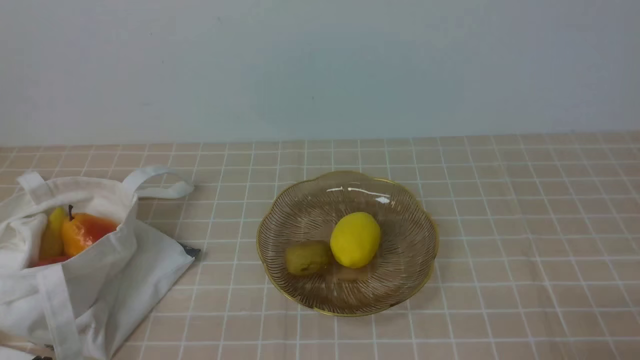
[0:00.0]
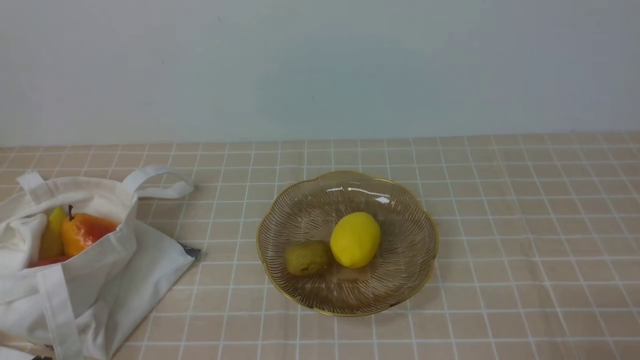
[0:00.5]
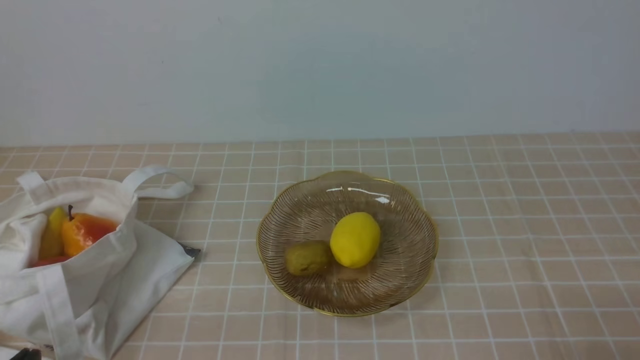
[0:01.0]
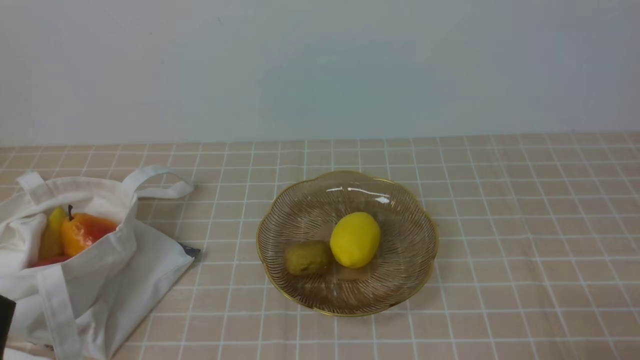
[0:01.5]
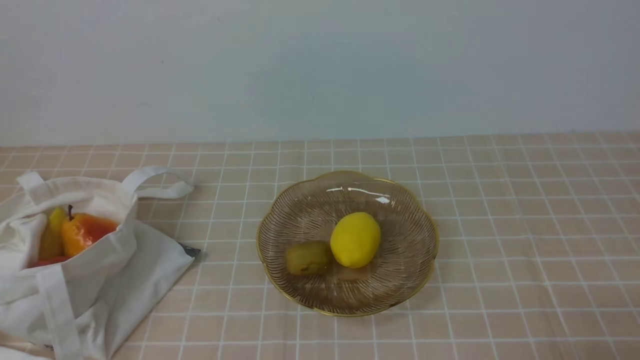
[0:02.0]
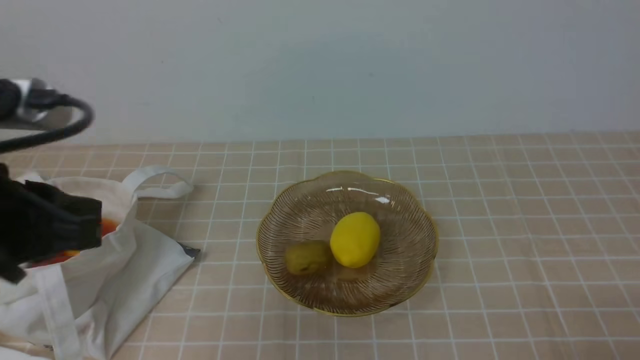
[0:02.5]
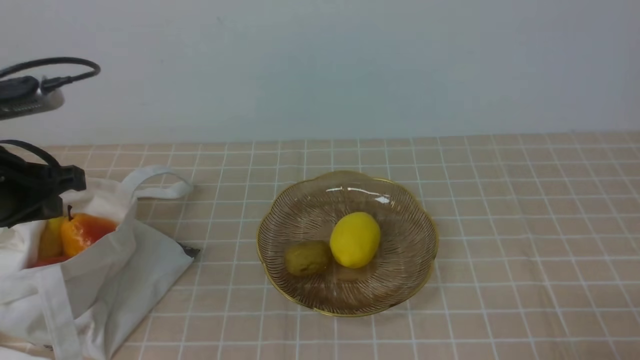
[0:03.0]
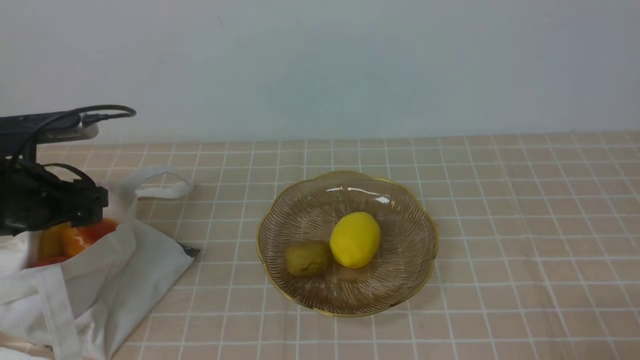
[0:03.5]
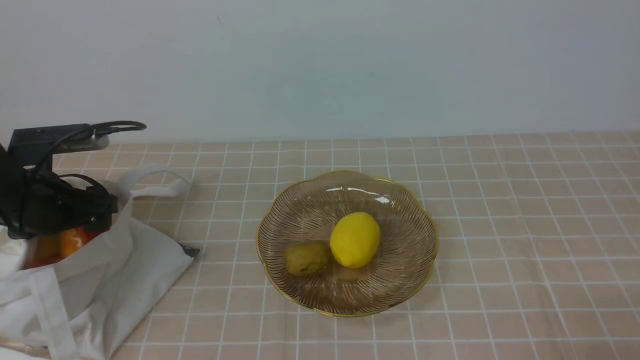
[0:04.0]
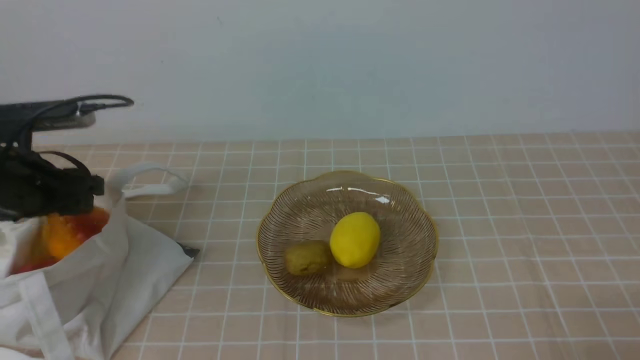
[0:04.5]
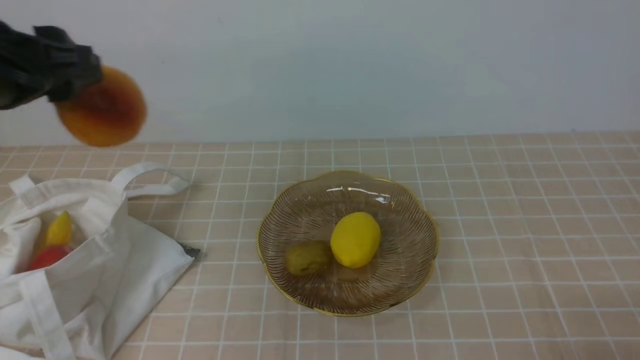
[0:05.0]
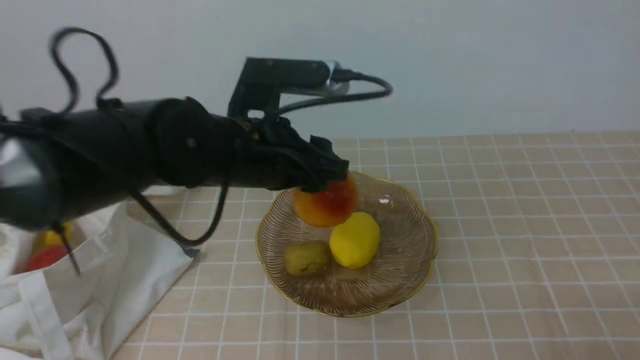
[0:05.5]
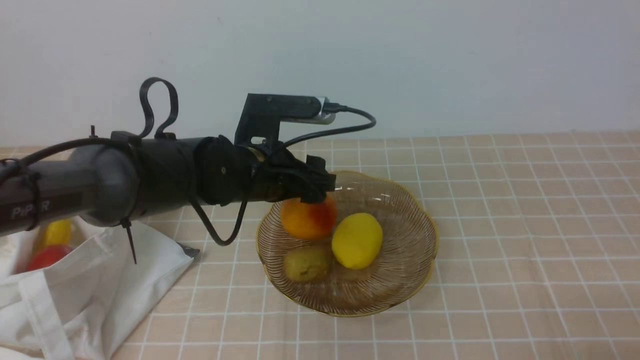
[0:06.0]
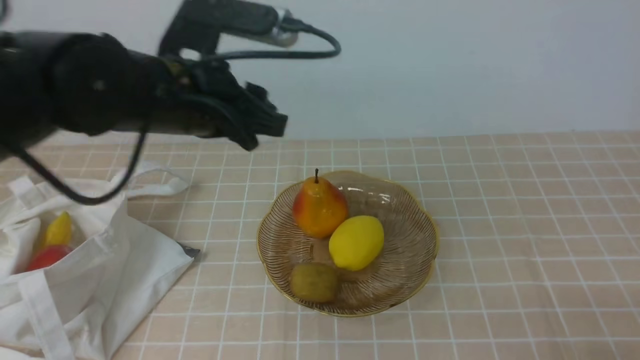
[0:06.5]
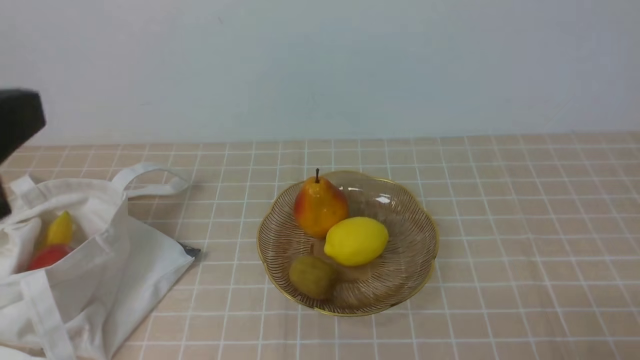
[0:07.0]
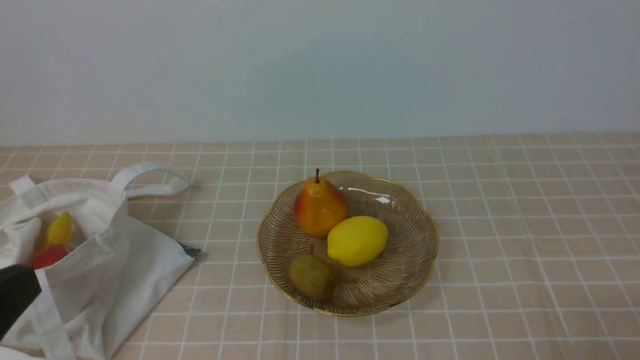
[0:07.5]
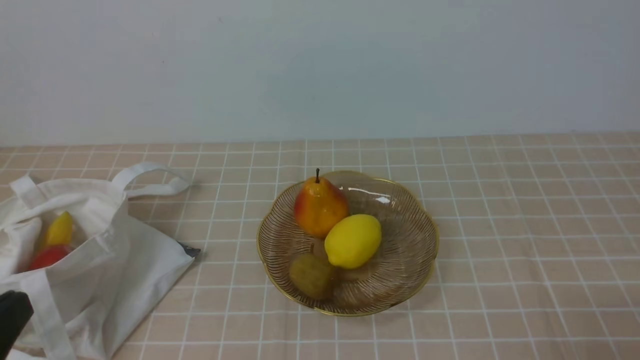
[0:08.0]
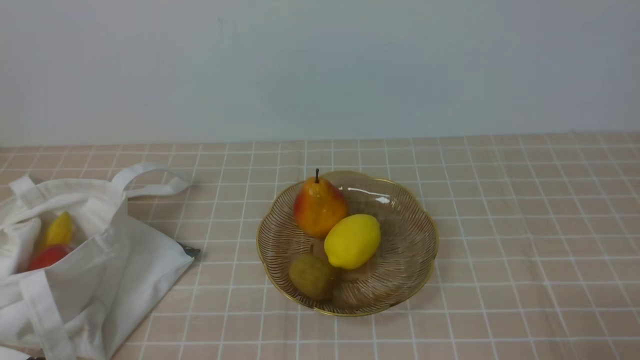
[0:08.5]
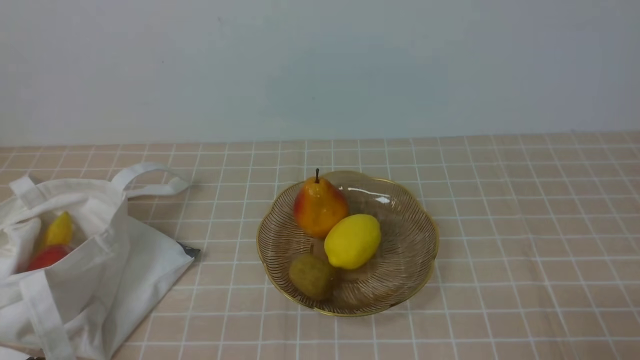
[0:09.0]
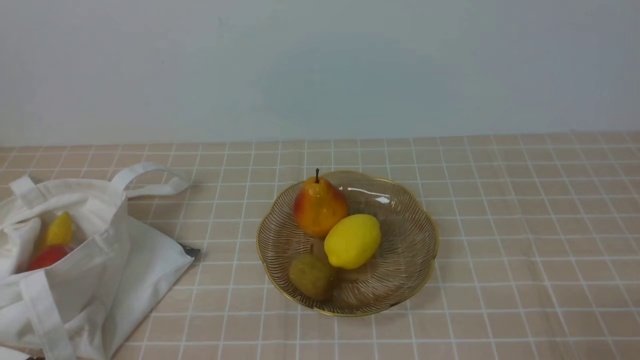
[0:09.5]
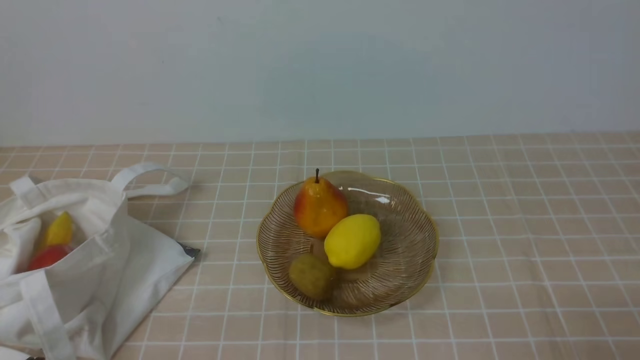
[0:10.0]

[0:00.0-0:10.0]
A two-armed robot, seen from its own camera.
Step, 0:00.0 to 0:04.5: use the left arm to grab a pear from the bag.
Step, 0:05.0 to 0:06.0: use the left arm to put the pear into the empty plate on the right.
0:02.0 to 0:04.0: The left gripper shifts roughly 30 cm forward, and opens.
0:04.0 to 0:06.0: The left gripper travels to the right by approximately 25 cm.
0:06.0 to 0:08.0: The left gripper travels backward and to the left by approximately 35 cm, and closes its fingers.
0:08.0 to 0:10.0: The left gripper travels downward by roughly 10 cm.

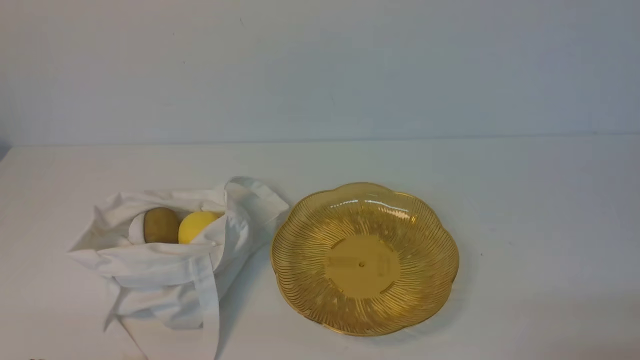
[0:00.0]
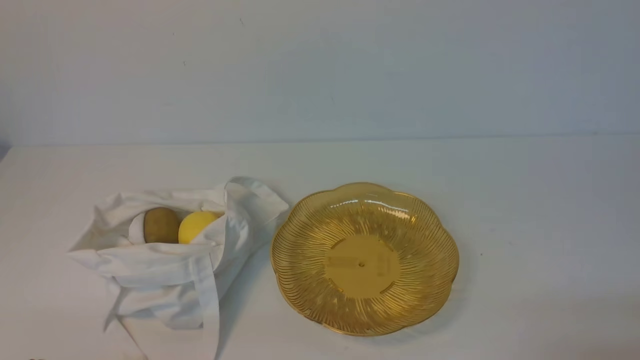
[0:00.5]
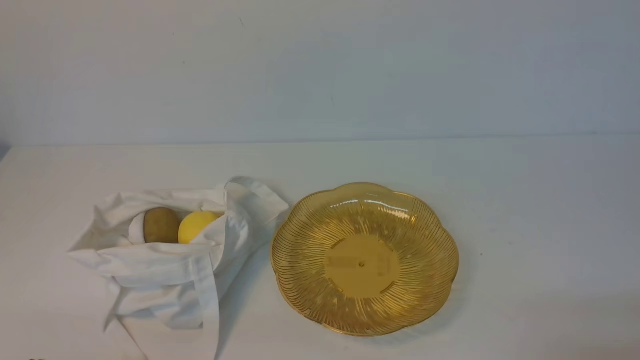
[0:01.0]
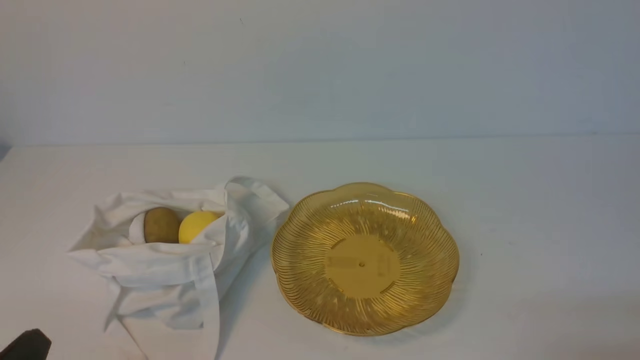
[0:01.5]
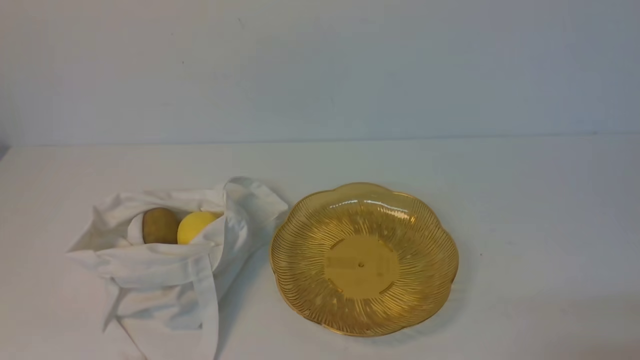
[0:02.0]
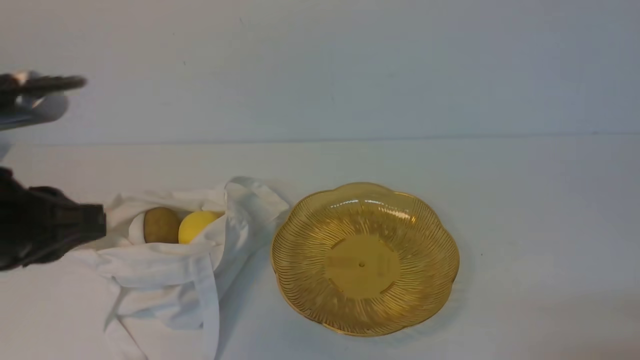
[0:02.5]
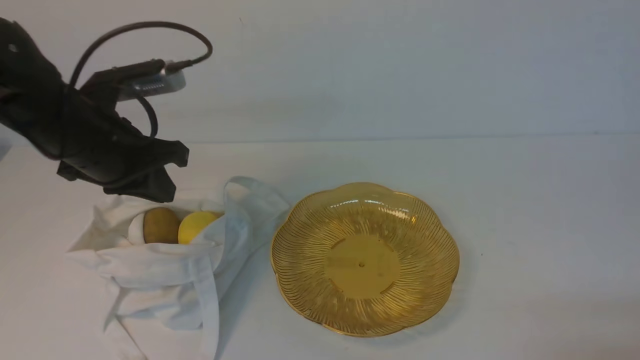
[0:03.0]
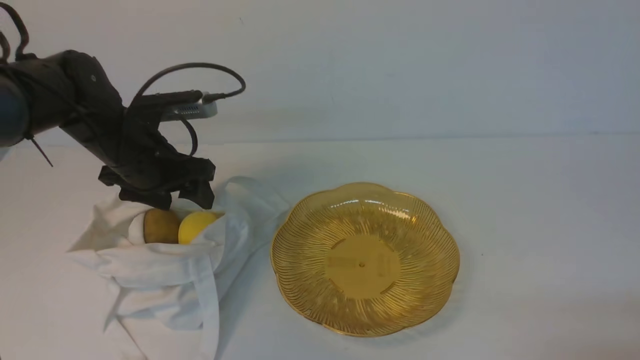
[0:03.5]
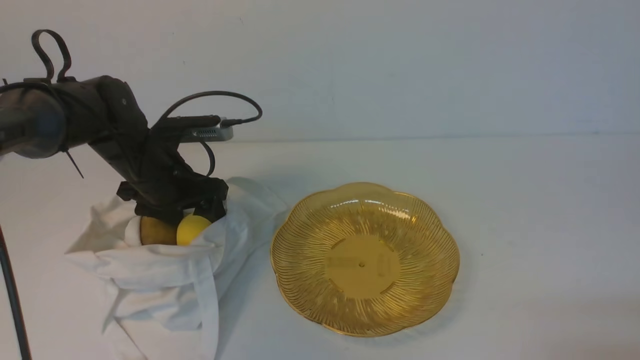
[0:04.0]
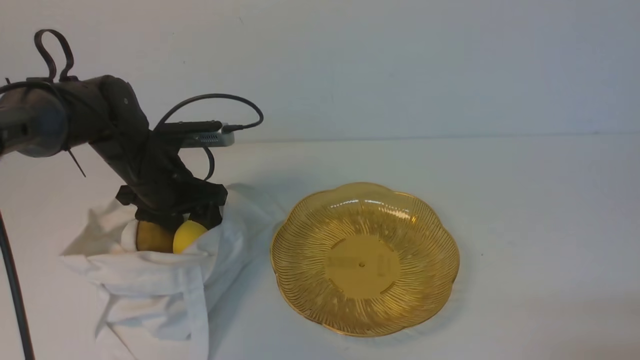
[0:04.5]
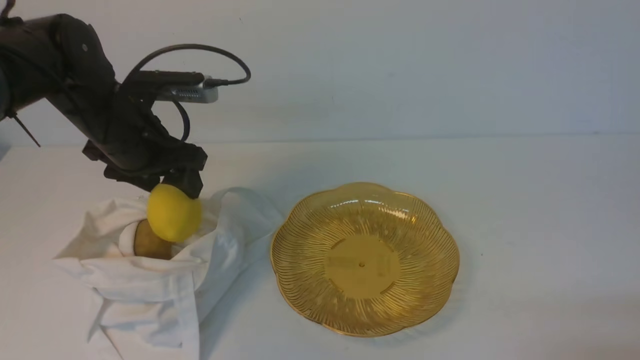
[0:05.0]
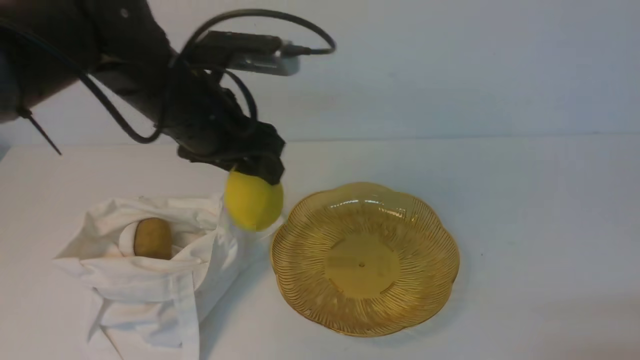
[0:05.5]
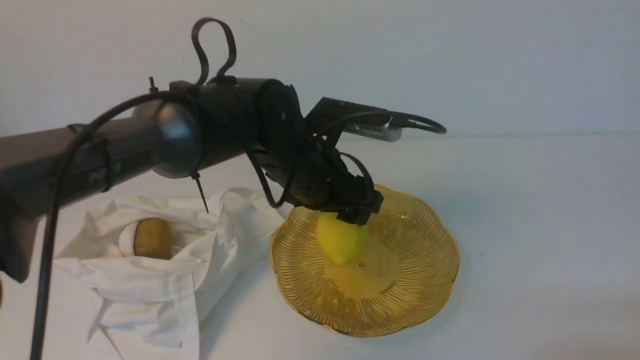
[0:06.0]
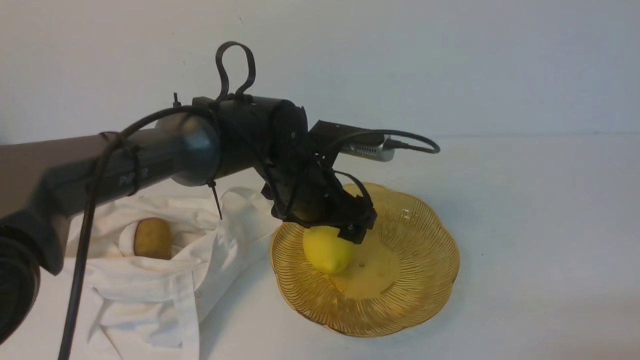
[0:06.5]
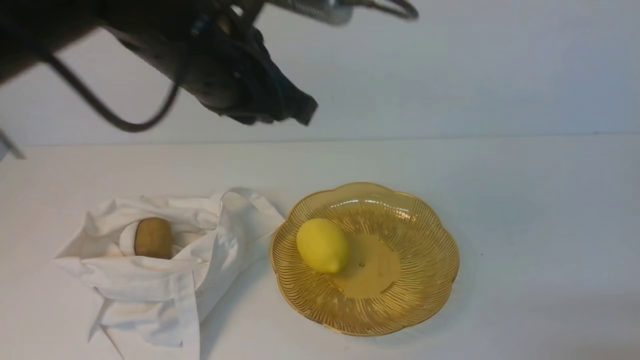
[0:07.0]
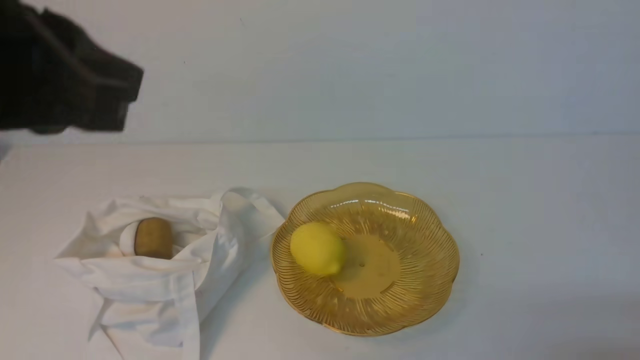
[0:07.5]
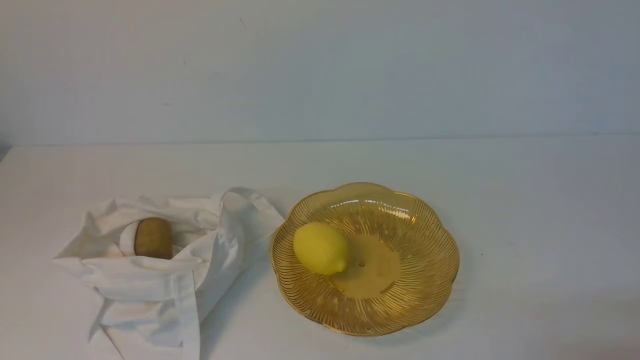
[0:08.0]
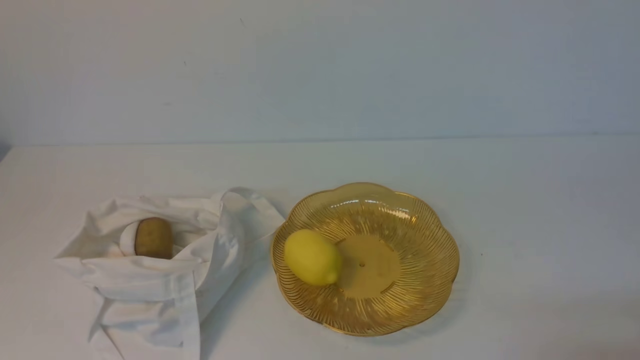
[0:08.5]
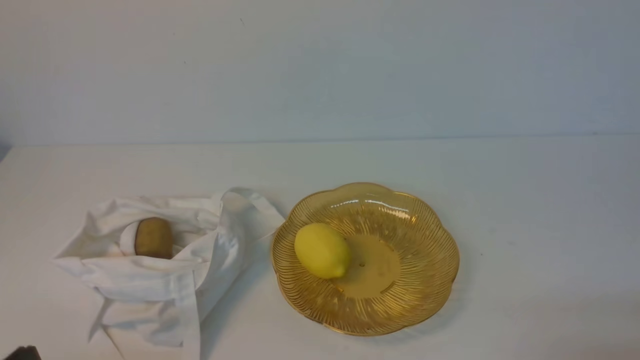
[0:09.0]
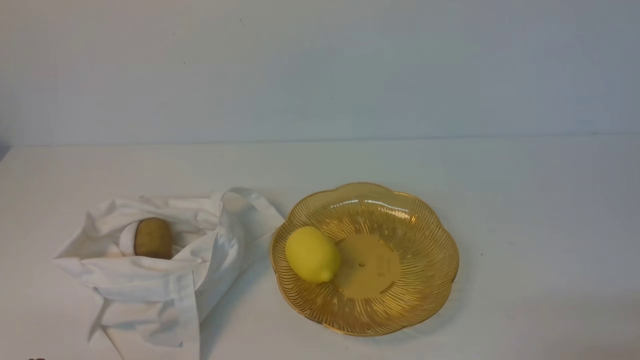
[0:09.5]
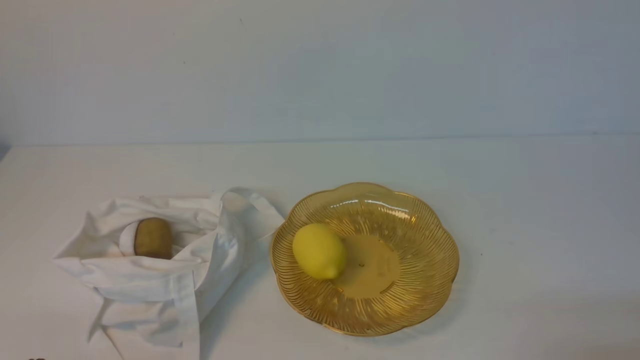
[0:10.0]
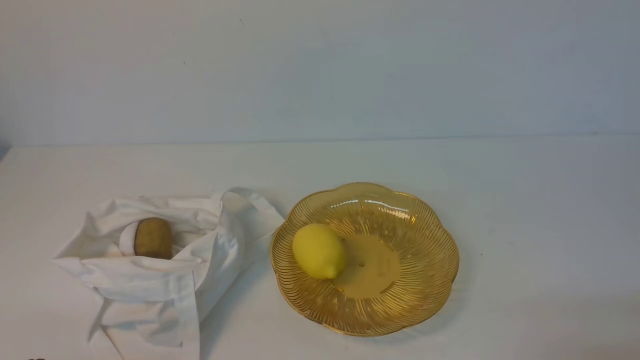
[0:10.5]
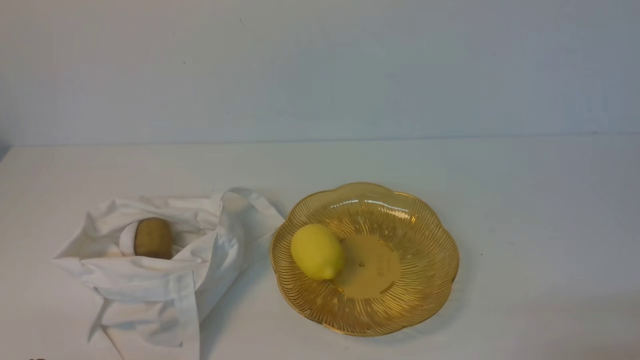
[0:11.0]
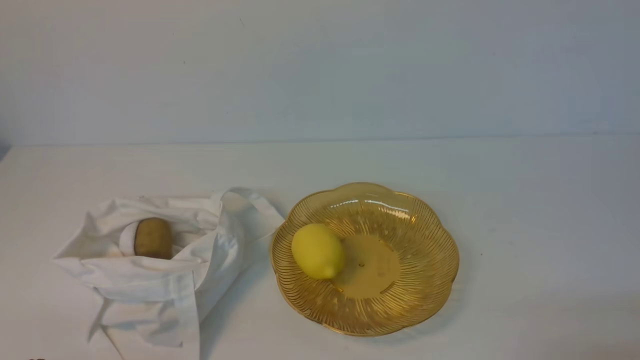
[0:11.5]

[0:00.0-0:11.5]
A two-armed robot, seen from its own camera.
Step, 0:00.0 to 0:04.5: use the left arm to grab a lemon from the bag.
Step, 0:05.0 to 0:06.5: use the left arm to put the lemon into the empty plate on the right.
0:02.0 to 0:04.0: The left gripper is displaced forward by about 35 cm, and opens up.
0:04.0 to 0:06.0: The left gripper is displaced to the right by approximately 15 cm.
0:06.0 to 0:07.5: The left gripper goes some 30 cm upward, backward and to the left, and closes its fingers.
0:07.5 to 0:09.5: The left gripper is displaced downward and backward by some 30 cm.
0:09.5 to 0:11.5: Neither gripper changes place.
